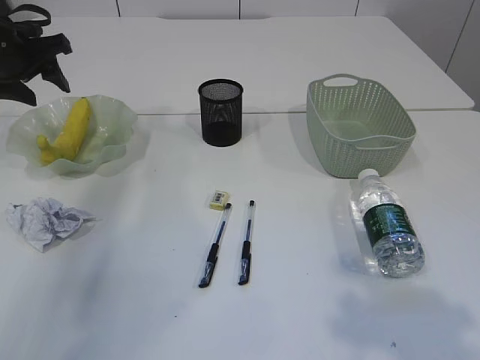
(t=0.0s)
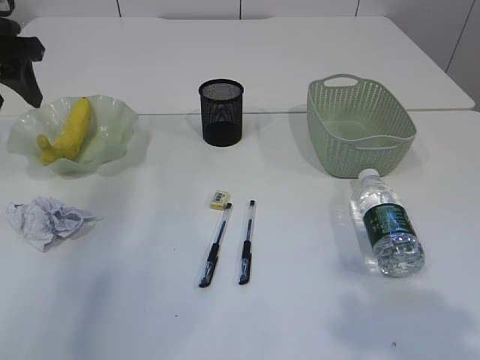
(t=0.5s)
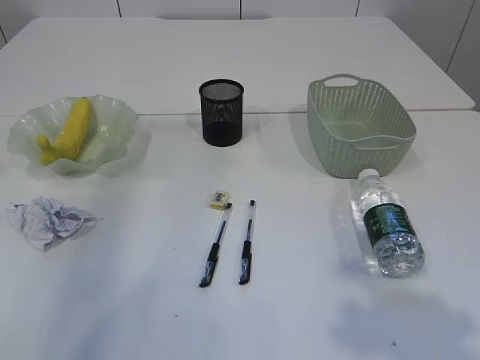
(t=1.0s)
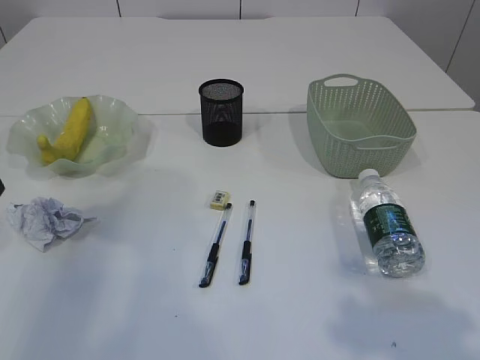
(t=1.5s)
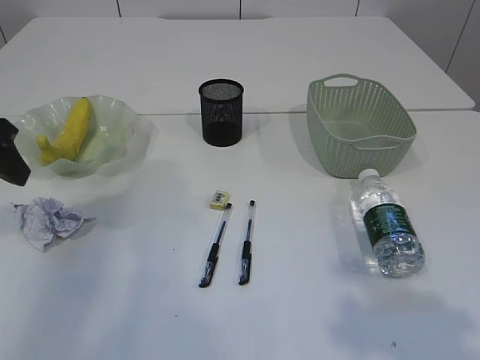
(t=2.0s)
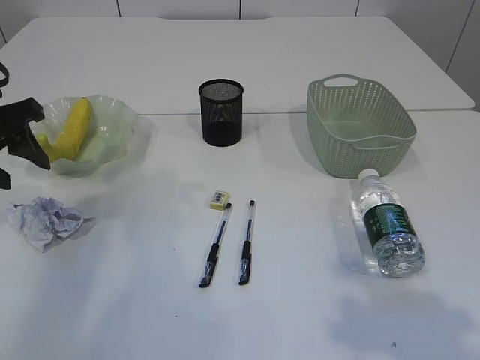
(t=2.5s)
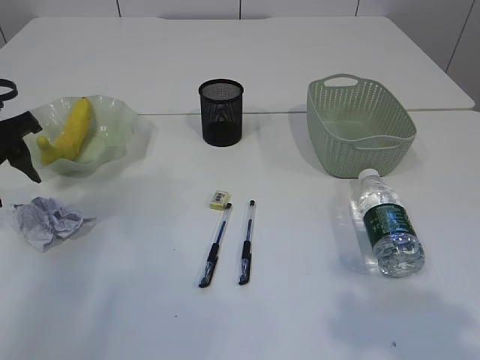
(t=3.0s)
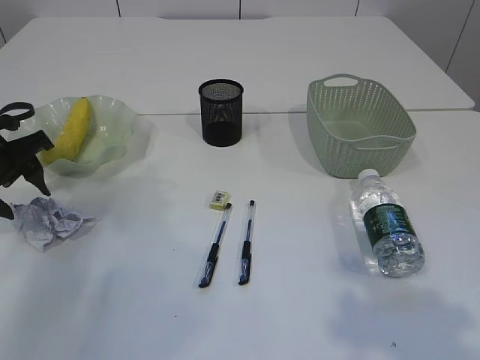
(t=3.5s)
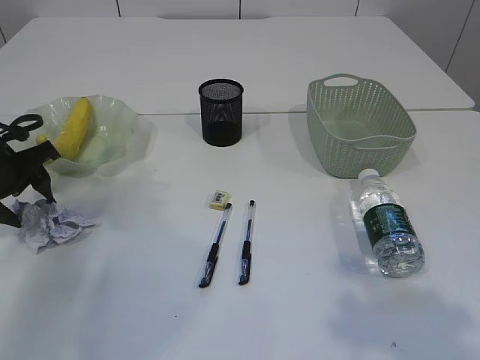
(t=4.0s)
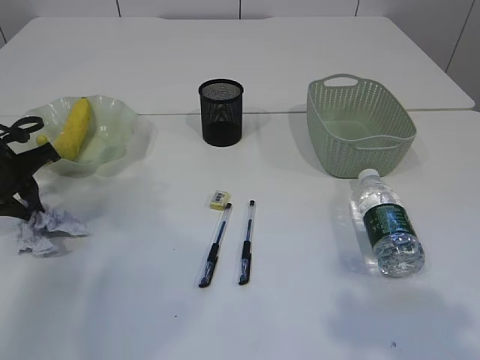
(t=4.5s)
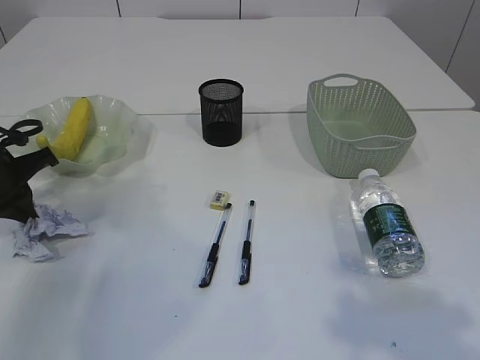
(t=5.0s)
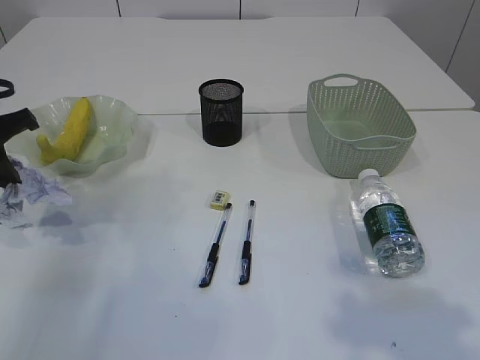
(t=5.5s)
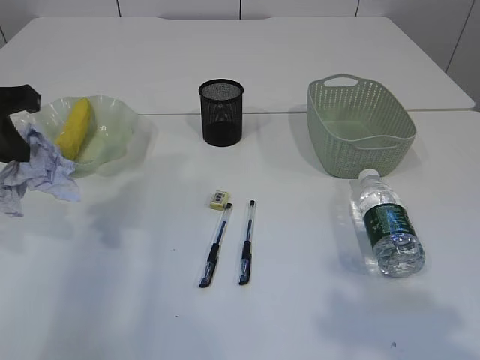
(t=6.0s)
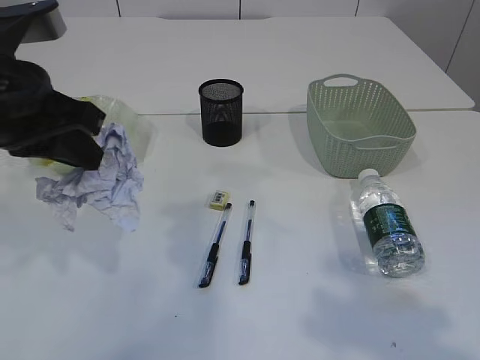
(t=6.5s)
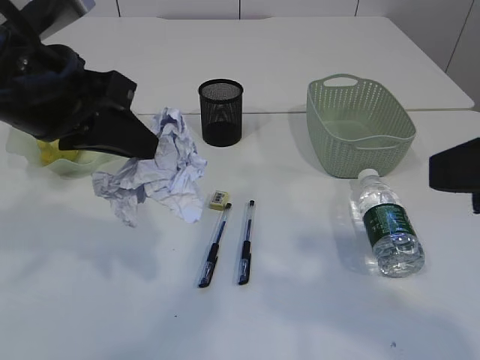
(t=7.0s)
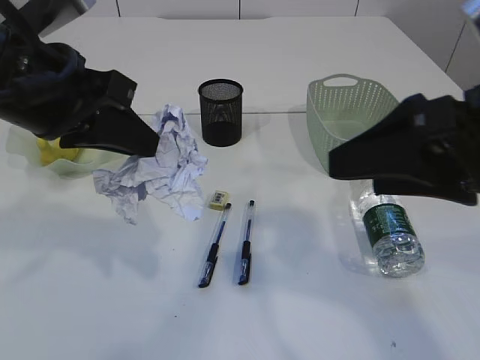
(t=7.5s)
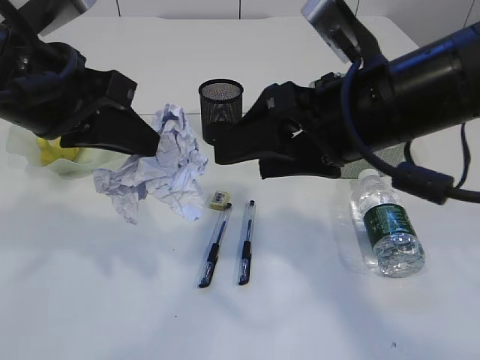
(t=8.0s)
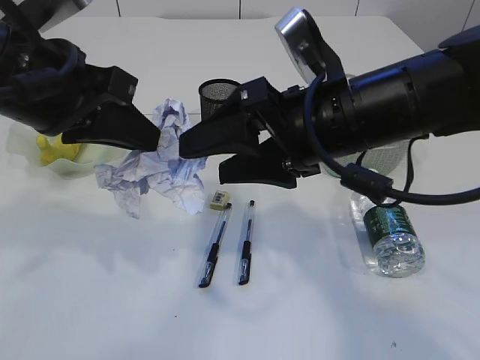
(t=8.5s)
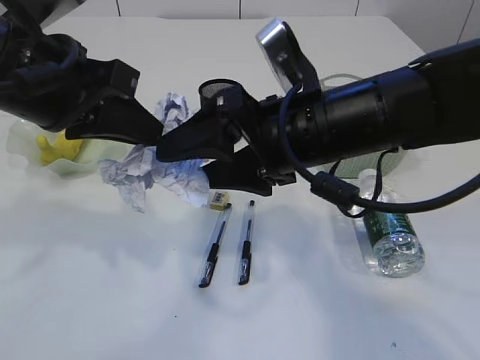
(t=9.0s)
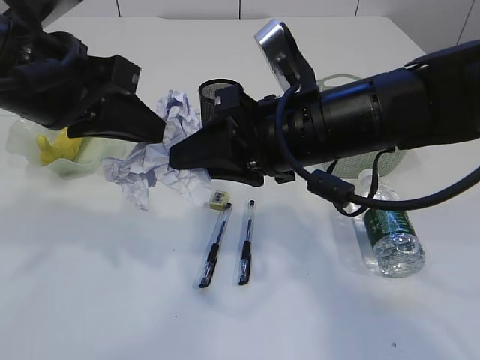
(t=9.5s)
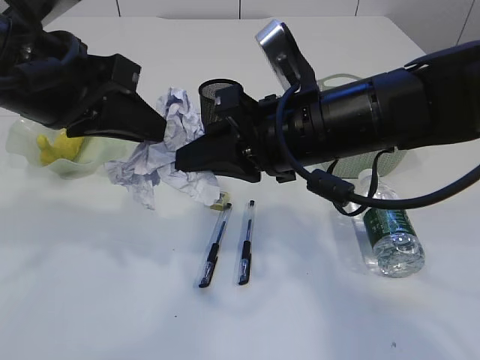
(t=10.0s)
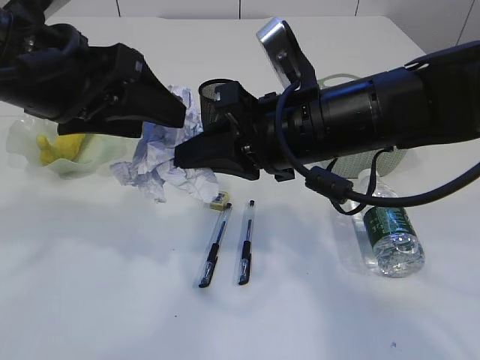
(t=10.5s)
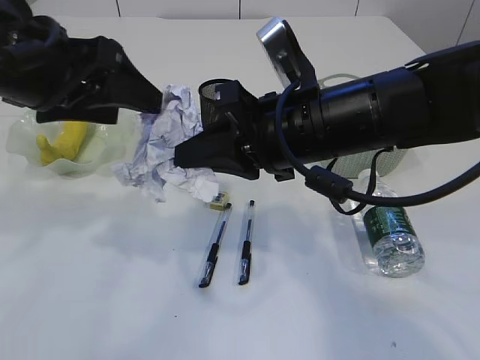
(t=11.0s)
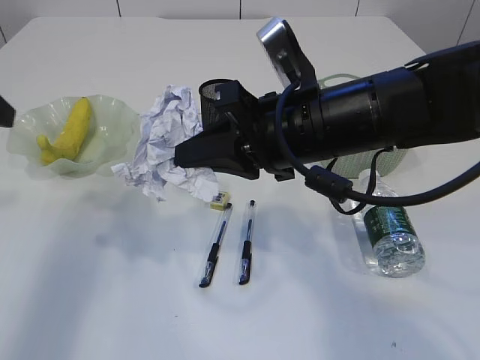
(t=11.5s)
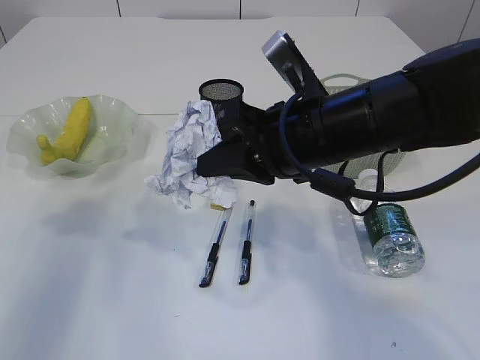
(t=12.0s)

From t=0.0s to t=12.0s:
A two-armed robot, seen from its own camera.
Step, from t=0.0s to t=5.5s: Pick up the waste paper.
From t=0.0s to t=2.0s: The left gripper travels backward by approximately 15 cm.
From t=2.0s to t=4.0s: The left gripper is displaced downward and forward by about 10 cm.
From t=4.0s to t=6.0s: The left gripper travels upward and backward by roughly 15 cm, and closes.
From t=6.0s to t=8.0s: The right gripper shifts roughly 20 cm forward and to the left. Meanwhile the left gripper travels to the right and backward by some 10 cm.
From t=8.0s to t=10.0s: The right gripper shifts by roughly 5 cm, and closes its fingers.
From t=10.0s to t=12.0s: The left gripper shifts some 15 cm to the left, and opens its fingers.

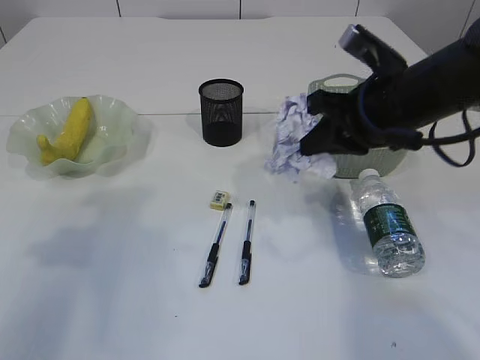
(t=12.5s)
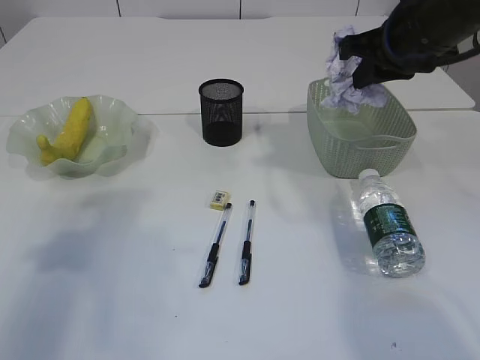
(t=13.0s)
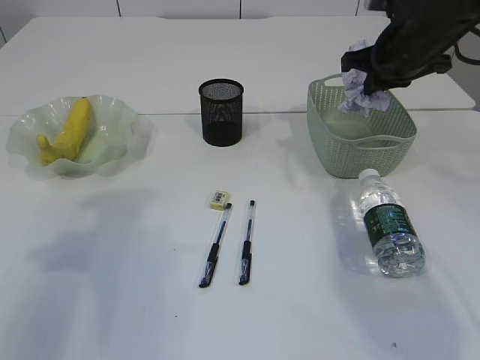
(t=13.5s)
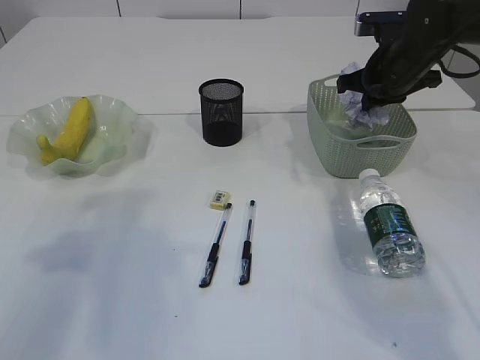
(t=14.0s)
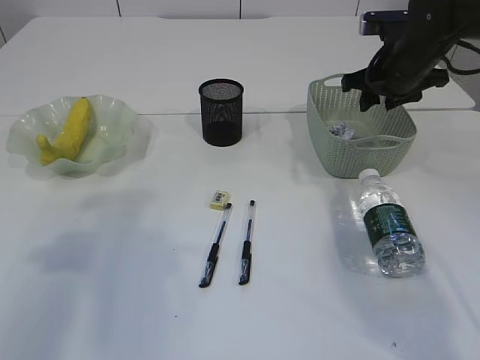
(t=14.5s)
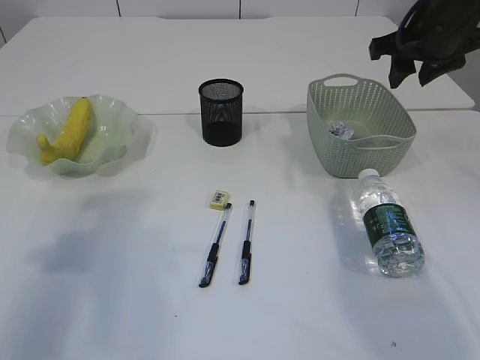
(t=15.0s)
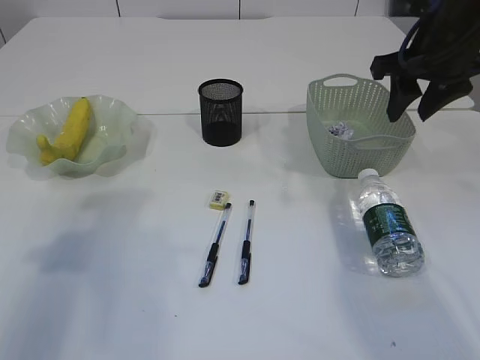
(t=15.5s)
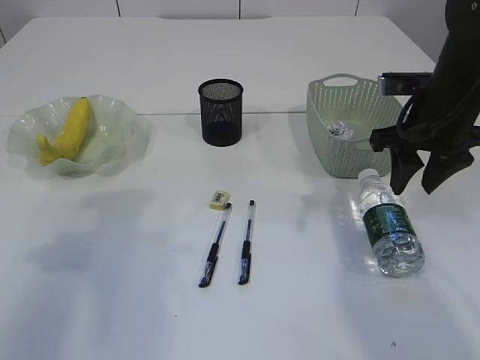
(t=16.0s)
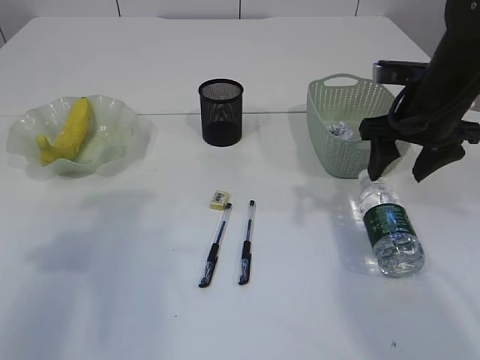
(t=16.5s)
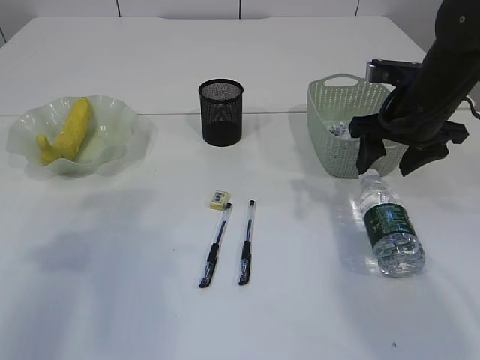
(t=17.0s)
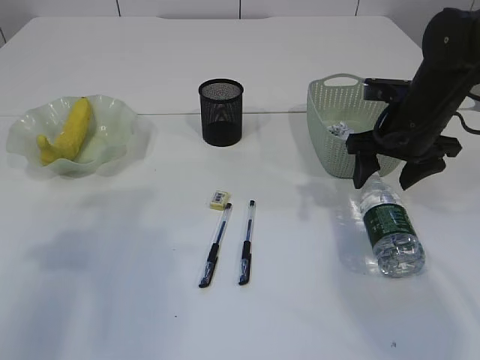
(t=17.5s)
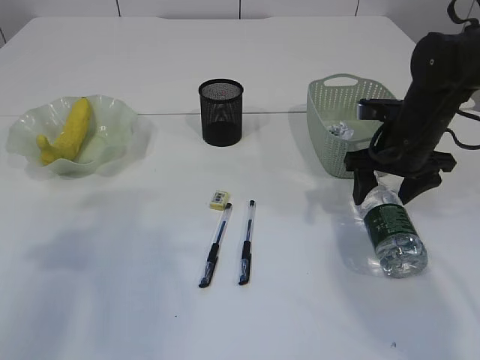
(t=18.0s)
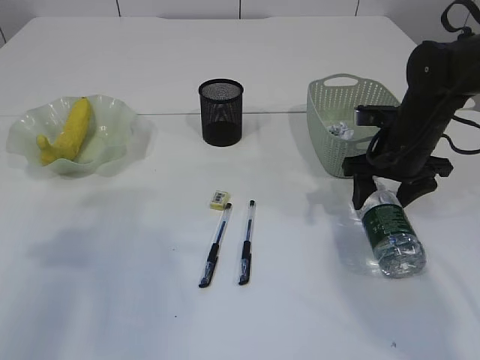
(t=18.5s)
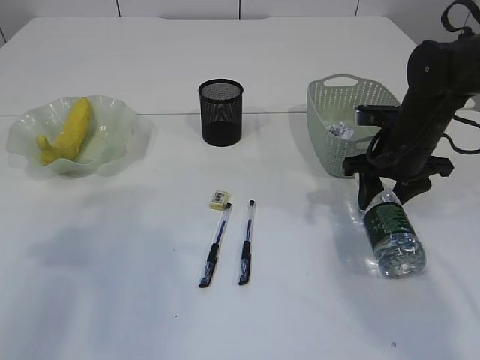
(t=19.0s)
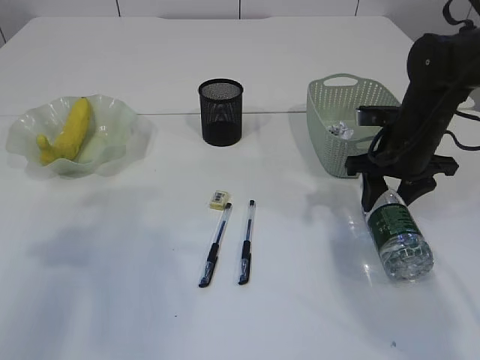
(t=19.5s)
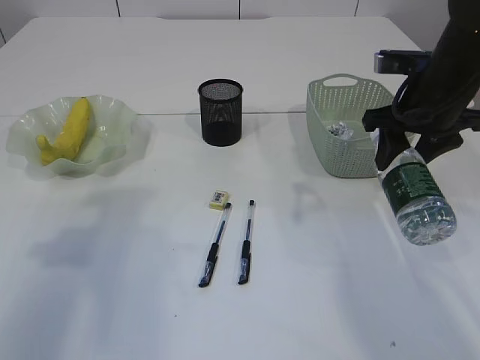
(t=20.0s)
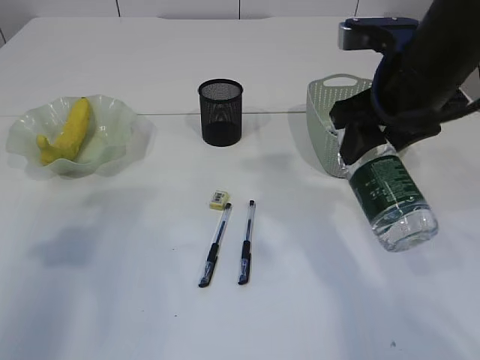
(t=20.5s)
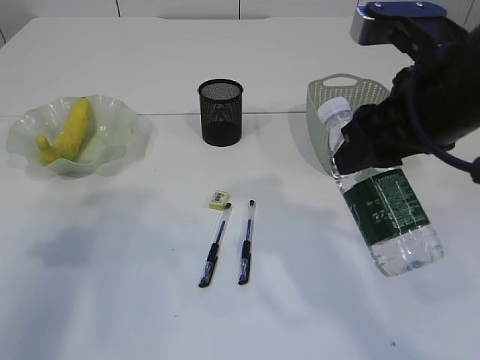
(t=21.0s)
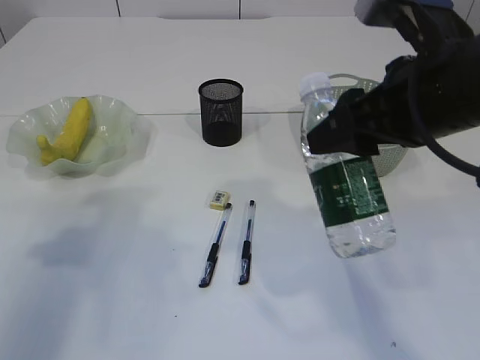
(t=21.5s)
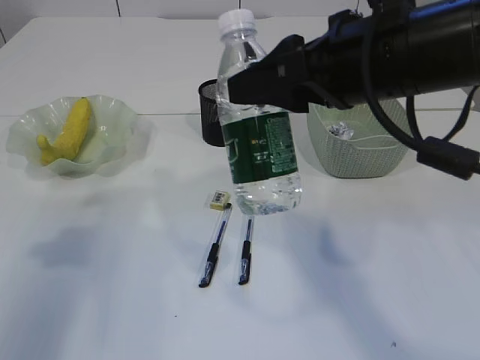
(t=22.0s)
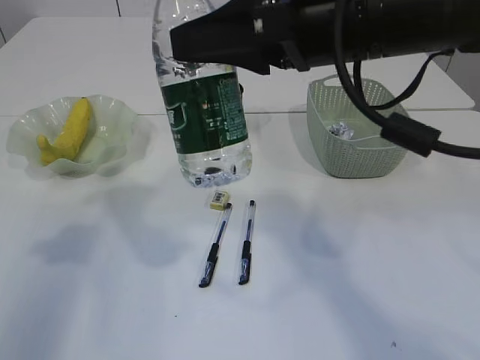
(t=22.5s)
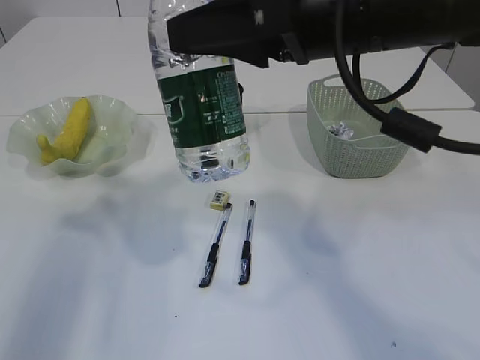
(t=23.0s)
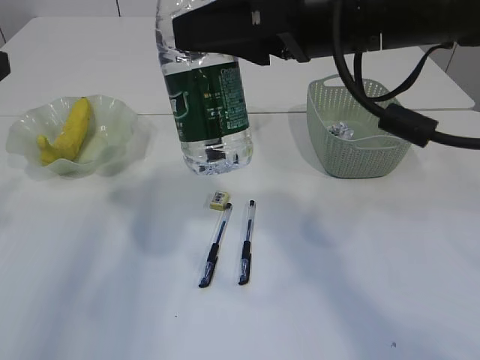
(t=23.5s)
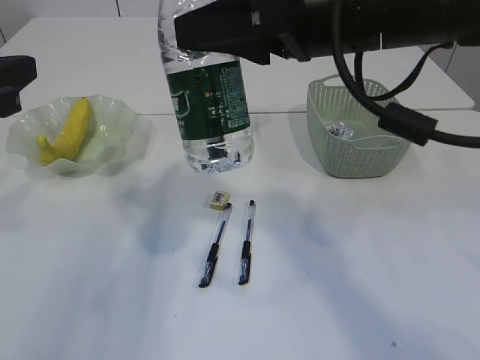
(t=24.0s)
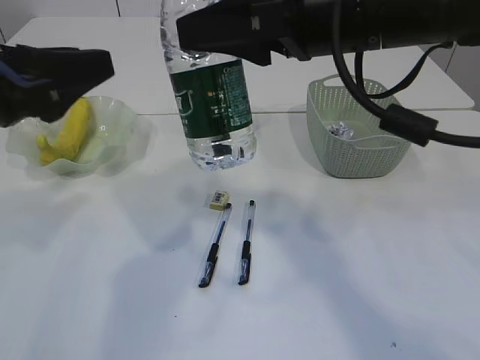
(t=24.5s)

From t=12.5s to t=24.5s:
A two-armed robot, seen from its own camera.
Step, from t=12.5s to t=14.5s: Place the waste paper in the basket.
Step, from t=15.0s to t=19.5s: Pick up the bottle with the right arm.
From t=12.5s to t=14.5s: The right gripper goes about 15 cm forward and to the right, and opens up.
From t=14.5s to t=16.5s: The right gripper travels backward by approximately 10 cm.
From t=16.5s to t=18.5s: The right gripper moves downward, some 5 cm.
From t=18.5s to t=20.5s: The right gripper moves upward, backward and to the left, about 15 cm.
From t=20.5s to t=22.5s: The right gripper shifts approximately 10 cm to the left and upward.
From t=22.5s to t=24.5s: The left gripper travels to the right by some 10 cm.

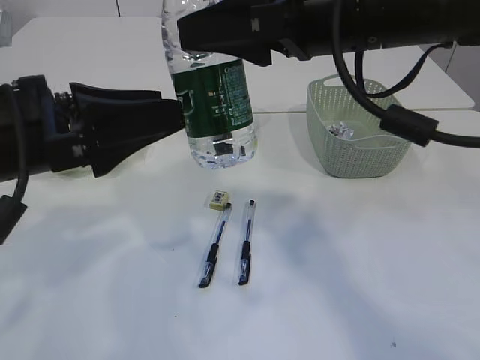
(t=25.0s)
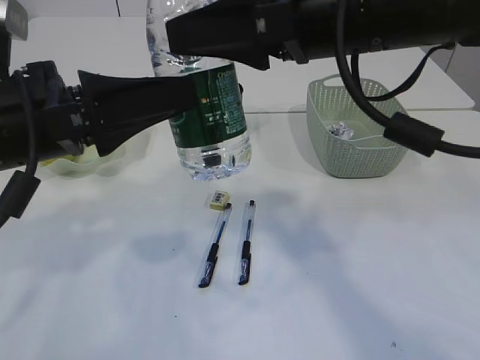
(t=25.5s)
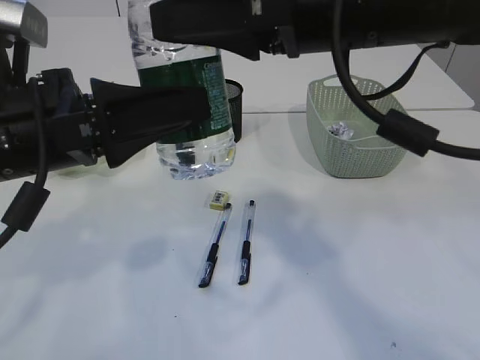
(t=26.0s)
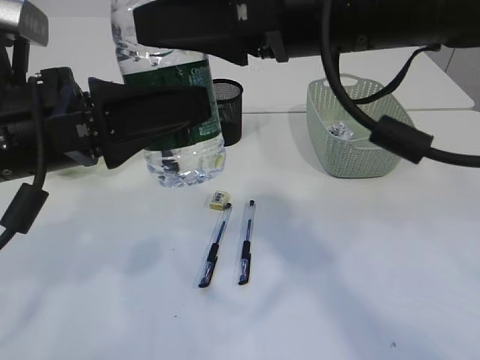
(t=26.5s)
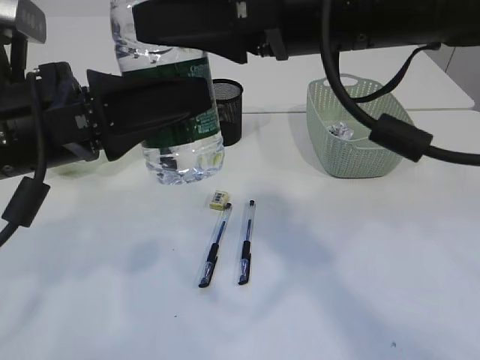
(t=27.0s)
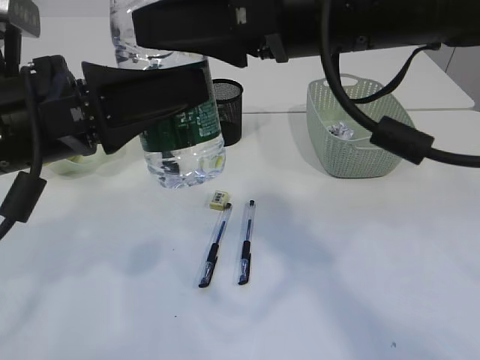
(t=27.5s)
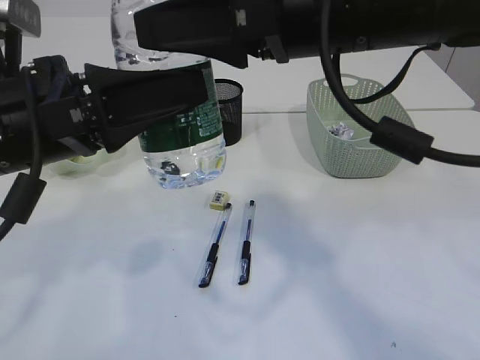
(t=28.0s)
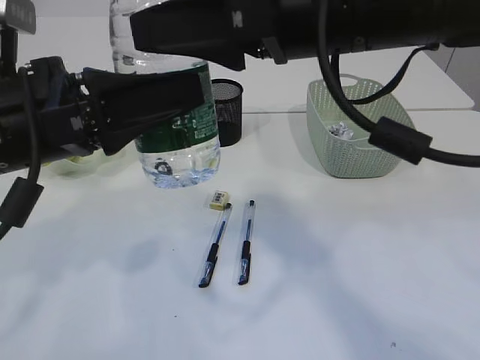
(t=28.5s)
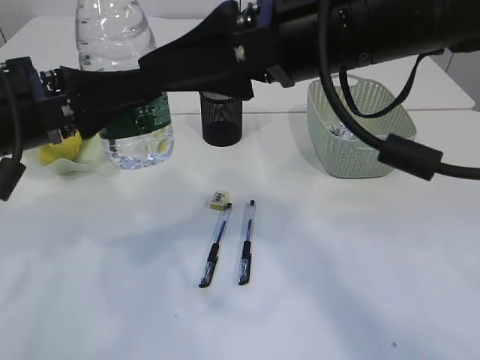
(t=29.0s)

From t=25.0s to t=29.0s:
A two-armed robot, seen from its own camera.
From t=25.0s to t=27.0s: The grippers stay close to where they were, moving slightly.
